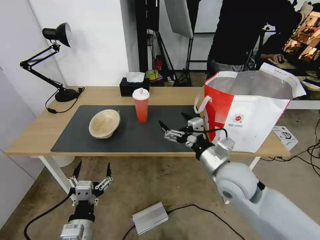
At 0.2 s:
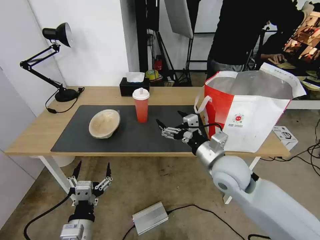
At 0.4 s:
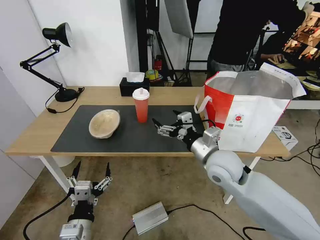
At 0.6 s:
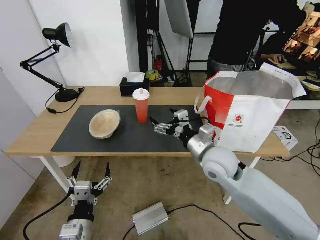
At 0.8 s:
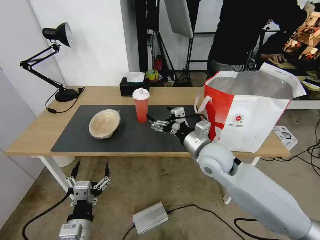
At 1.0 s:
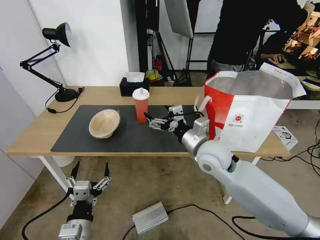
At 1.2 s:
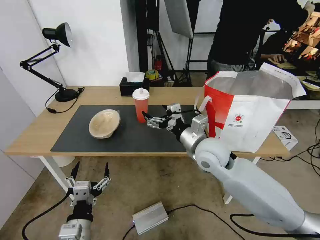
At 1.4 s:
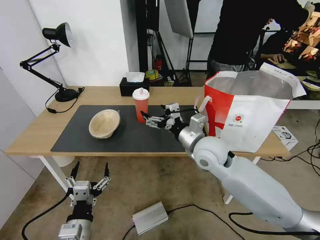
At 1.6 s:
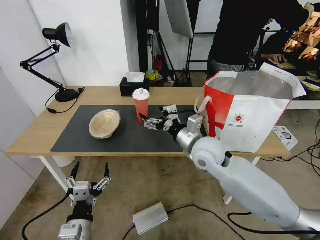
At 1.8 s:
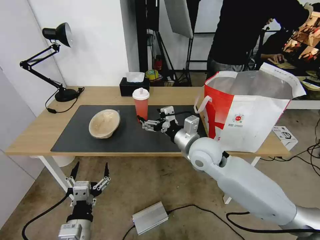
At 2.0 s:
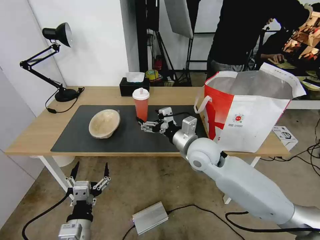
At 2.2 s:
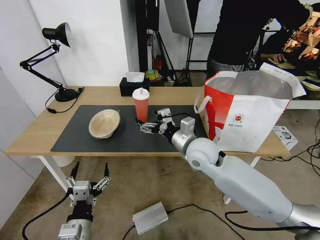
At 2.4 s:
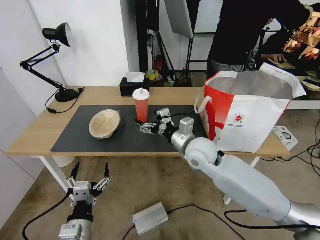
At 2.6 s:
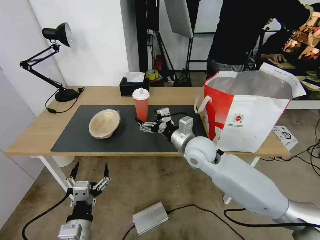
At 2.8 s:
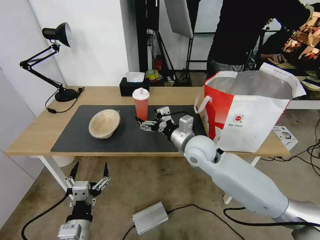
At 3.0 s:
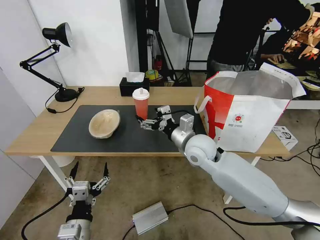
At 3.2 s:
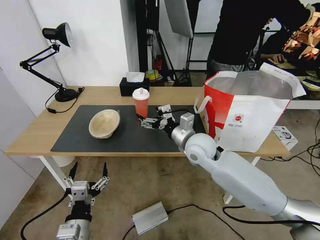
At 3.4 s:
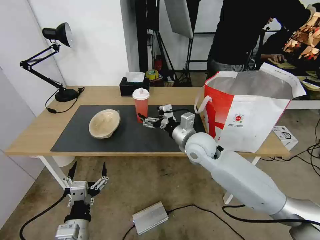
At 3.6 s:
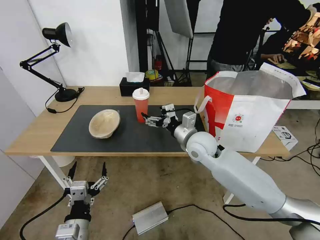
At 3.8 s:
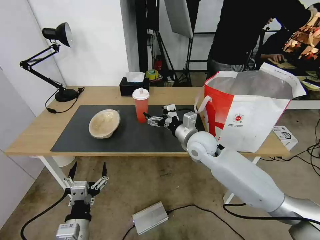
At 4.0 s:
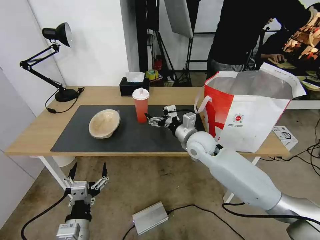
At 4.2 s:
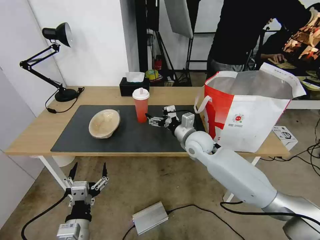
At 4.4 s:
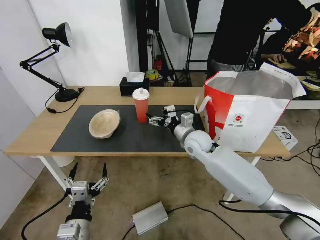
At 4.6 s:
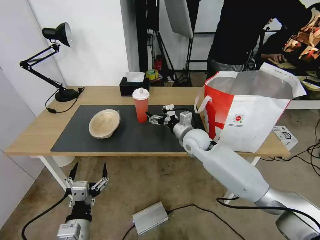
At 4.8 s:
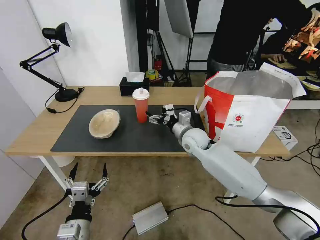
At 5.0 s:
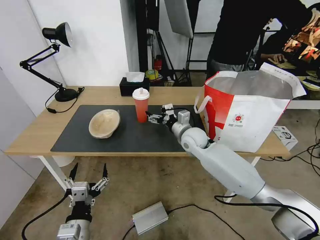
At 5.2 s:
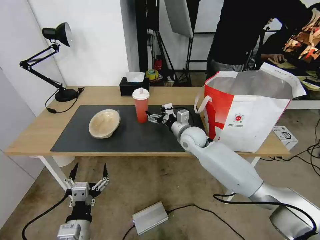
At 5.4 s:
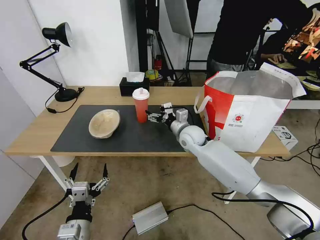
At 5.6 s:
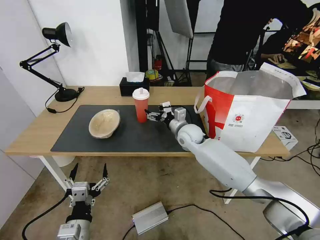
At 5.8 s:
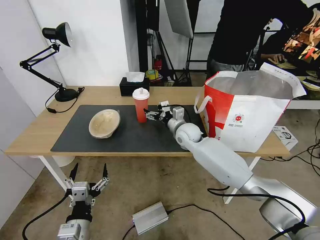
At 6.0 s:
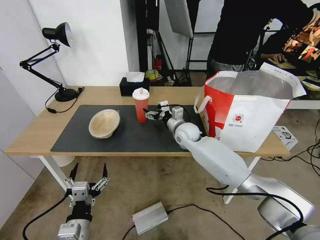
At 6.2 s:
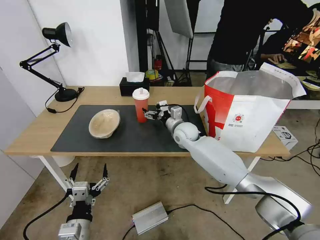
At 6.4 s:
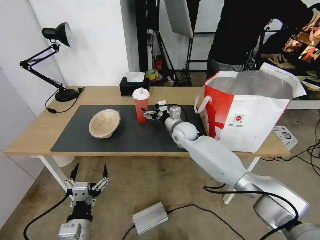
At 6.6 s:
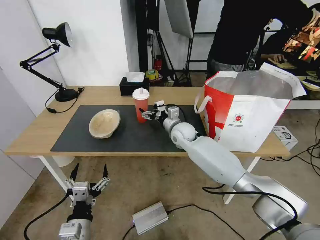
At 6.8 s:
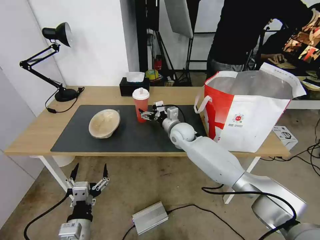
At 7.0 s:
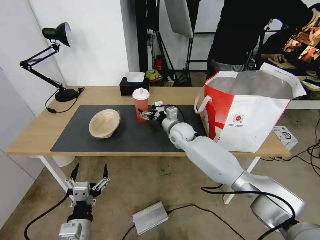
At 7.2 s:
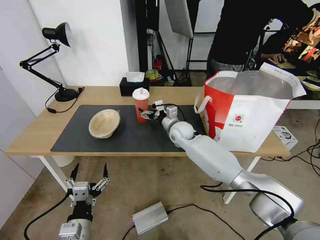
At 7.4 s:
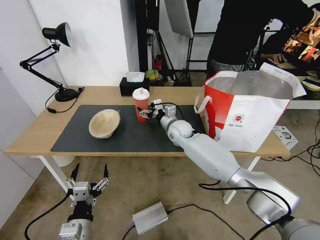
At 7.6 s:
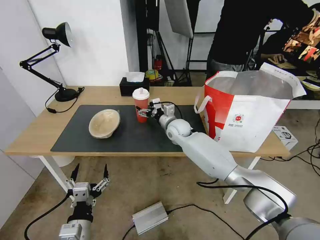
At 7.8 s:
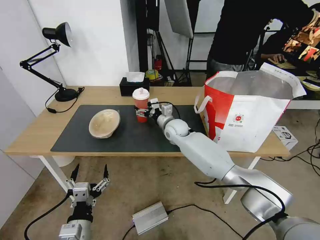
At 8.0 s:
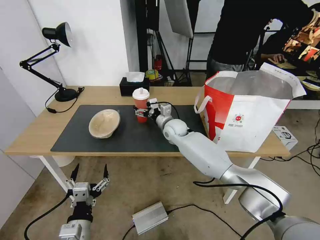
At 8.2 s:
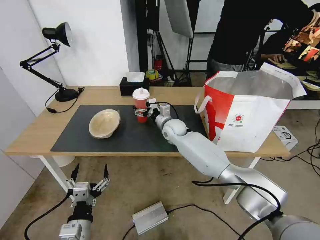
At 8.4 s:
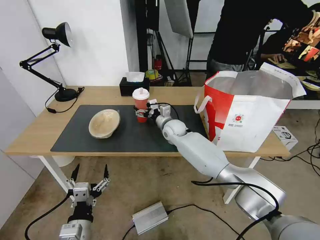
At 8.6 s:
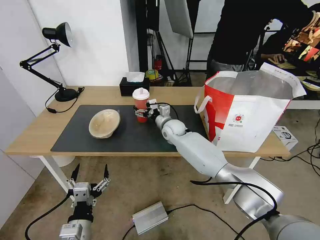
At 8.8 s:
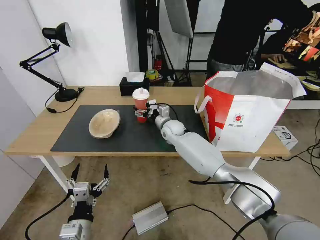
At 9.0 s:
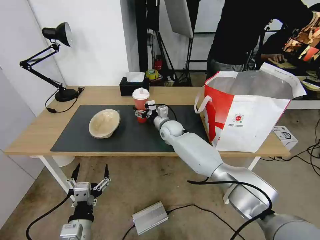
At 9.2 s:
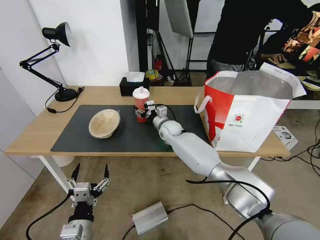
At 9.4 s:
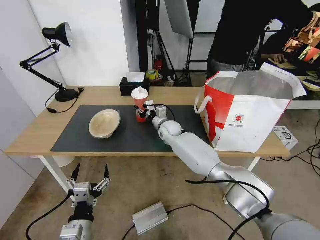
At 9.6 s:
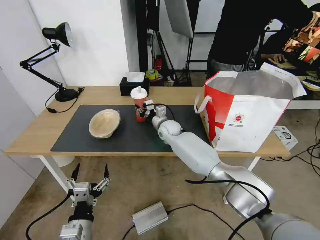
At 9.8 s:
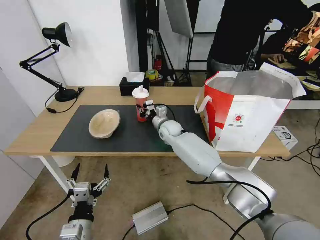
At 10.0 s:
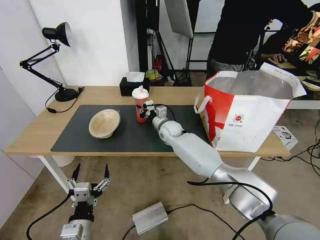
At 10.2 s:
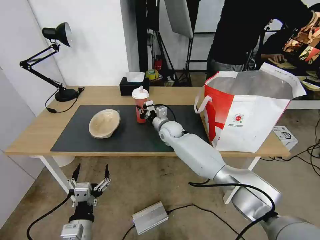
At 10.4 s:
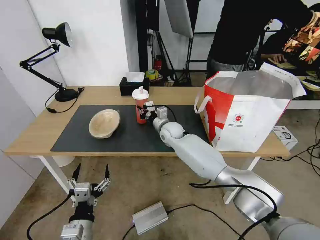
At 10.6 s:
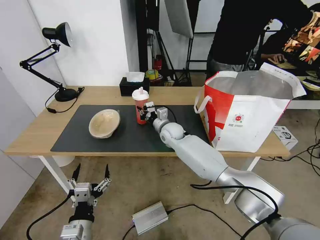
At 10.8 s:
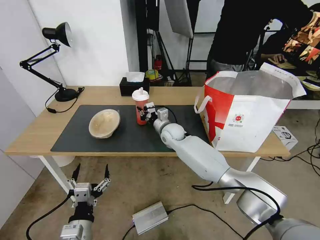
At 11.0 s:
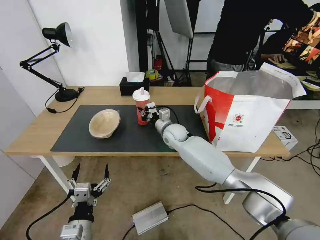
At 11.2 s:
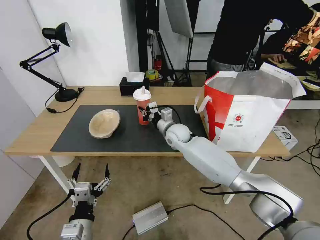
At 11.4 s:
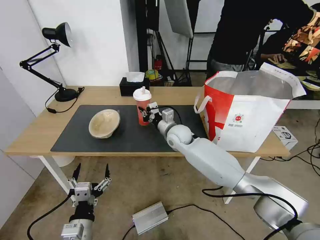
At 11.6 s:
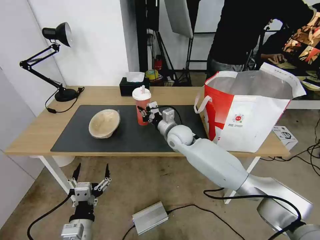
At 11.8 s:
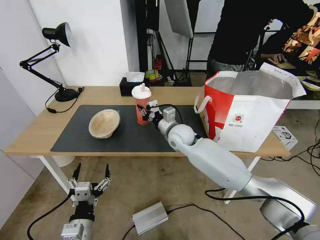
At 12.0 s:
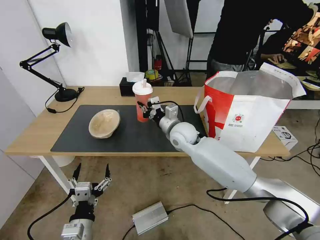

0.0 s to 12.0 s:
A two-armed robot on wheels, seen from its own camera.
Task of the whole recording: Pick up the trash from the table and place it into the takeout bag.
0.0 to 1.6 s: The right gripper shifts some 10 cm forward and to the left.
1.6 to 3.0 s: The grippers stay close to where they were, moving slightly.
3.0 to 4.4 s: The right gripper shifts some 5 cm forward.
4.4 to 6.0 s: The right gripper moves forward, roughly 5 cm.
6.0 to 7.6 s: The grippers make only small movements.
7.6 to 9.0 s: The grippers make only small movements.
9.0 to 10.4 s: The right gripper closes its fingers.
10.4 to 12.0 s: The right gripper is displaced backward and upward by approximately 10 cm.

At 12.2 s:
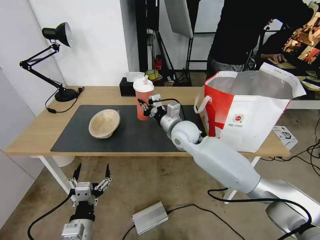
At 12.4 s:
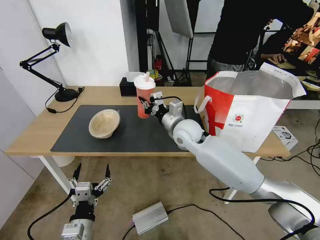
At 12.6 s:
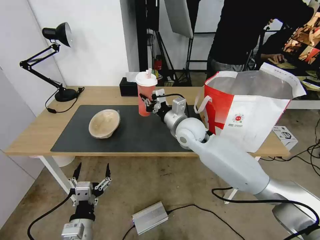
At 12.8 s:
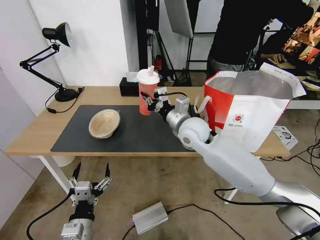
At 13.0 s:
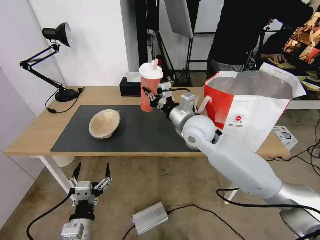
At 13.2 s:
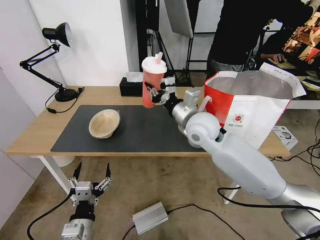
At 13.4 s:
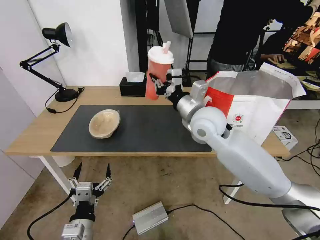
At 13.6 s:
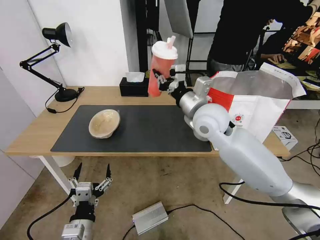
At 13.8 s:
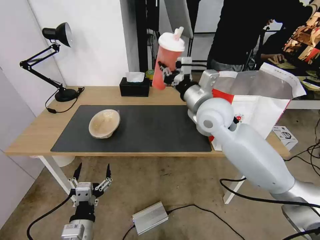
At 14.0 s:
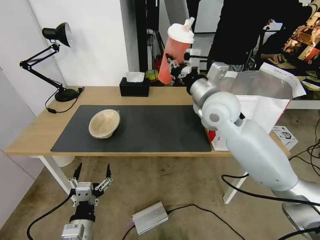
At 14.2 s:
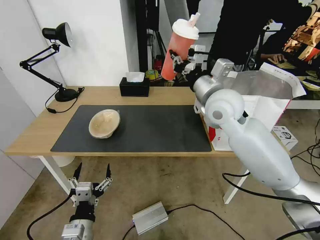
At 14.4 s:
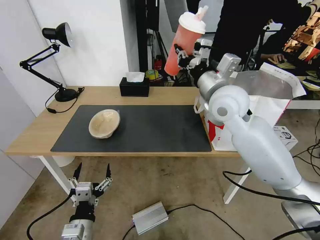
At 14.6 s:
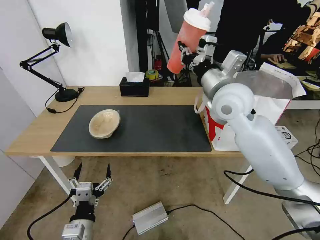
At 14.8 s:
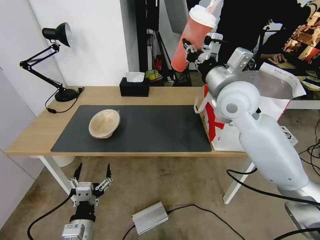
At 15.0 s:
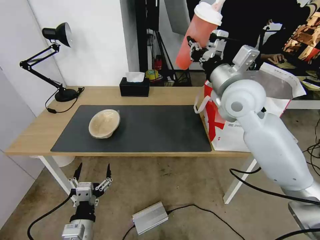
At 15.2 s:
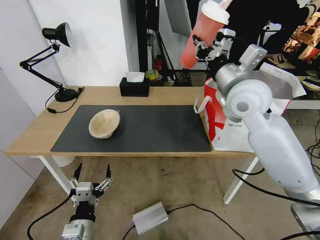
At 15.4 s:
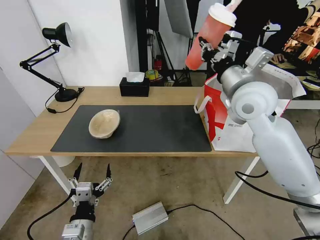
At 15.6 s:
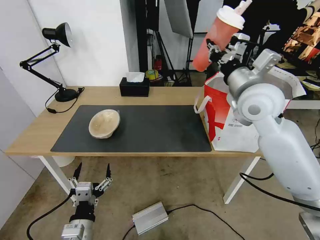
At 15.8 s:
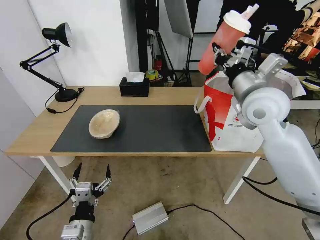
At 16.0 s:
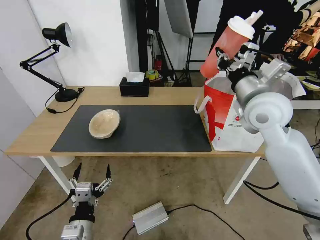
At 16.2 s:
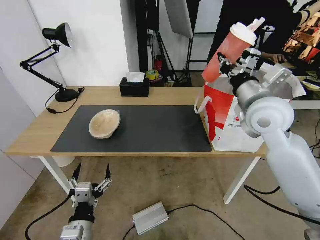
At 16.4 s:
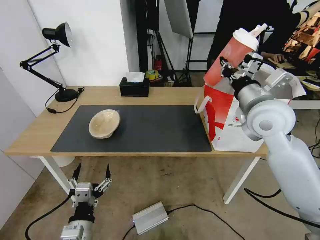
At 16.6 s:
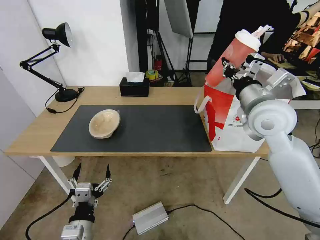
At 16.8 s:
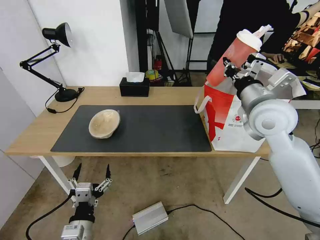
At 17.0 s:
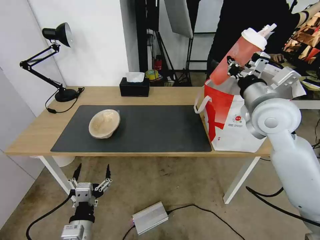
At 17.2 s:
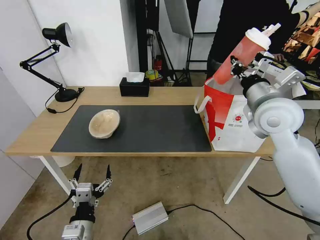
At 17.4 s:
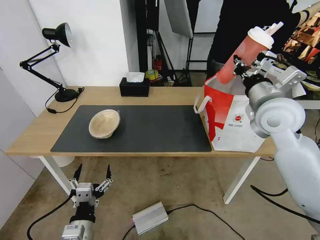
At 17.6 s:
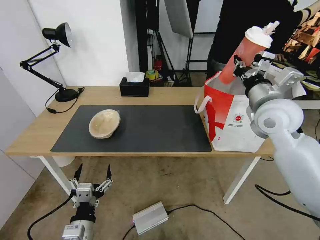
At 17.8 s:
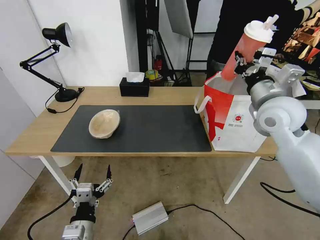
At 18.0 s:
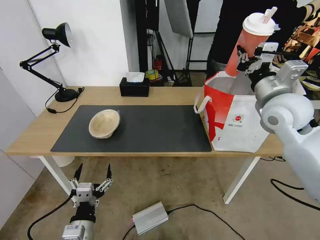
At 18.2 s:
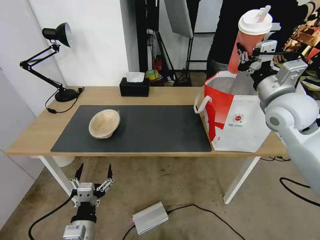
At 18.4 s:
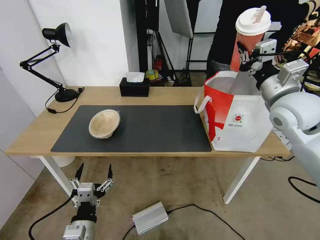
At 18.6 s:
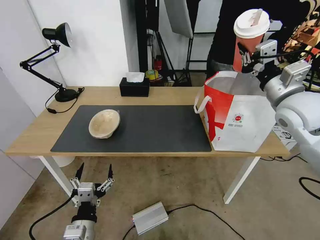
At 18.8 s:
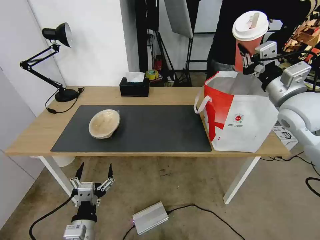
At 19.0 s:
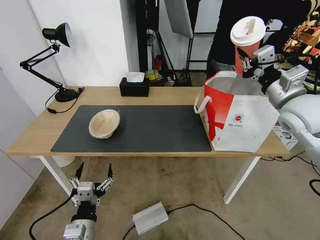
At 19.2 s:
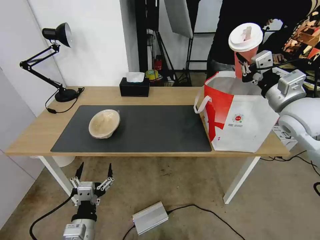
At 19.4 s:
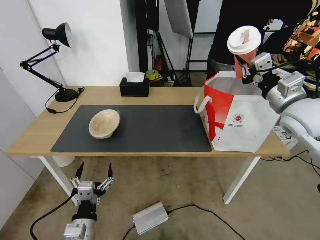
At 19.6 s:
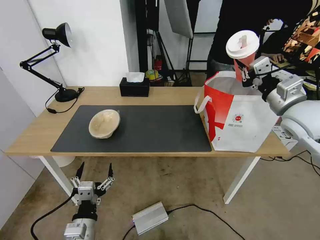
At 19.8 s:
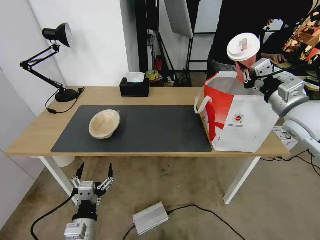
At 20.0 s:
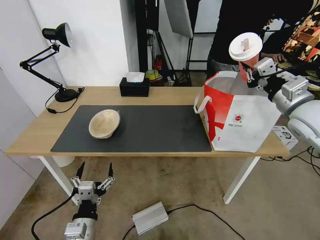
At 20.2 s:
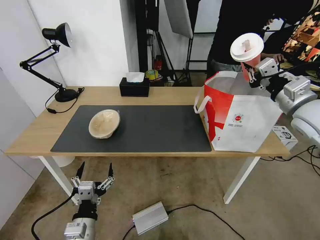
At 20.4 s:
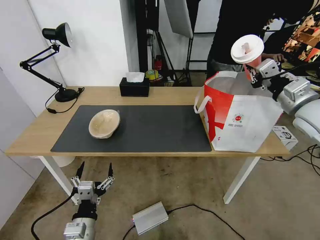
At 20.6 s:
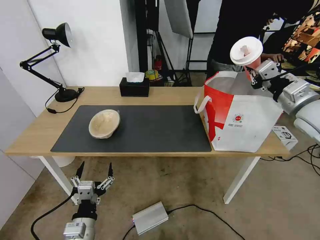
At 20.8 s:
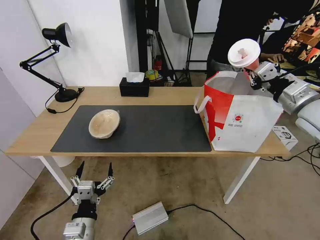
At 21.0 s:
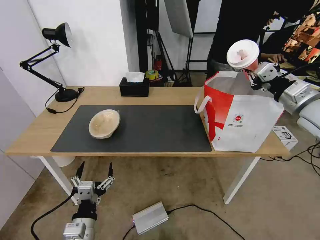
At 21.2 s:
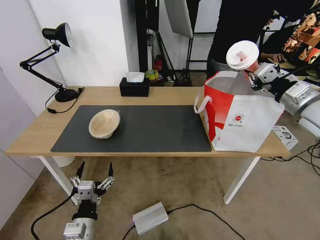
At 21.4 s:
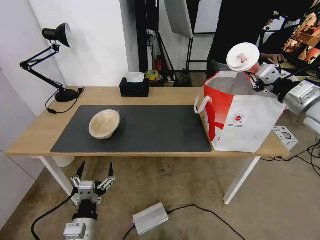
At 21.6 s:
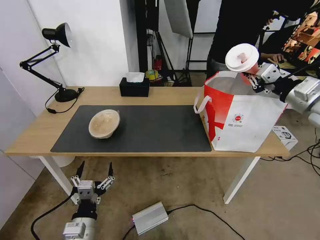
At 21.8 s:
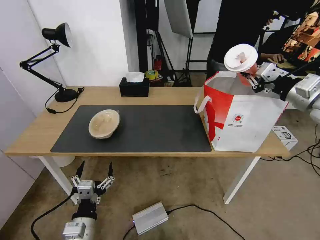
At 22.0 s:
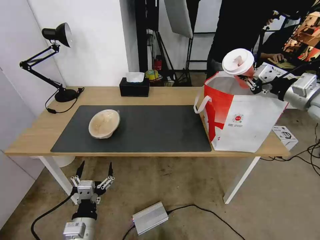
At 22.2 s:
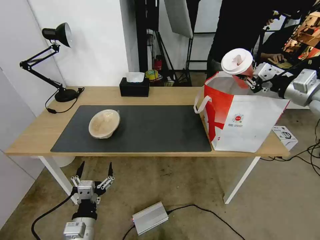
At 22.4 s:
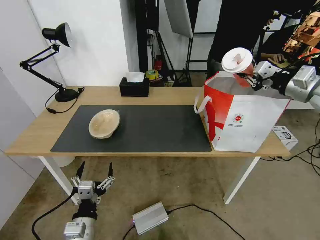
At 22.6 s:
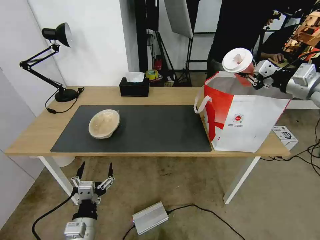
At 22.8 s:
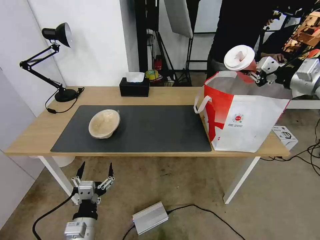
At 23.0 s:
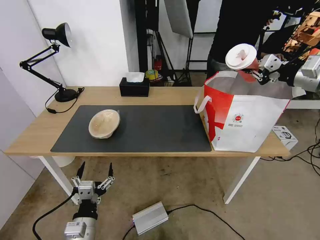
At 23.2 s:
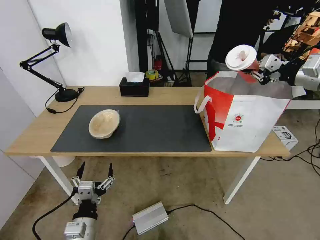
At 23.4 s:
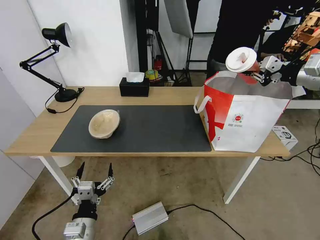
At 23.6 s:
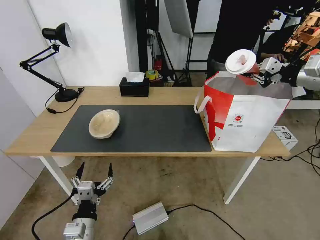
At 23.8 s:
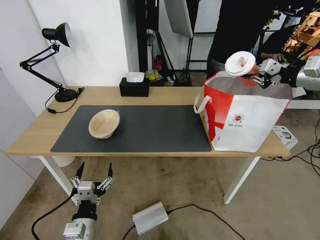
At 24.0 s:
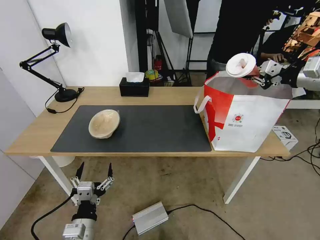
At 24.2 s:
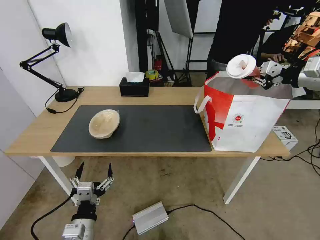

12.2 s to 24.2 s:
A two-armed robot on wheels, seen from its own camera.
Task of the whole recording: Pick up the trash from the table and place it into the takeout bag.
12.2 to 13.8 s: The right gripper is displaced upward and to the right by roughly 15 cm.
13.8 to 15.2 s: The right gripper heads to the right and upward, covering about 10 cm.
15.2 to 16.6 s: The right gripper travels to the right by about 5 cm.
16.6 to 18.2 s: The right gripper heads to the right, covering roughly 5 cm.
18.2 to 19.8 s: The right gripper moves approximately 5 cm.
19.8 to 21.2 s: There are only small adjustments of the grippers.
21.2 to 22.6 s: The right gripper moves forward, about 5 cm.
22.6 to 24.2 s: The right gripper changes place by about 5 cm.
